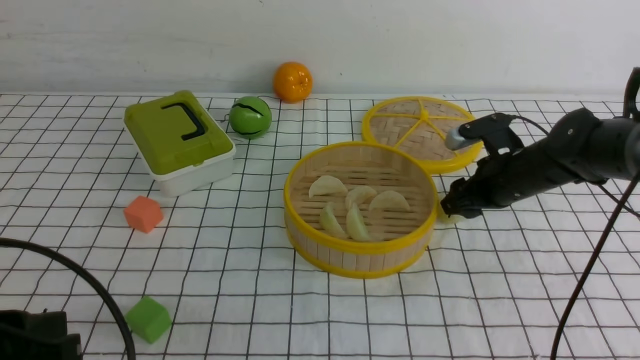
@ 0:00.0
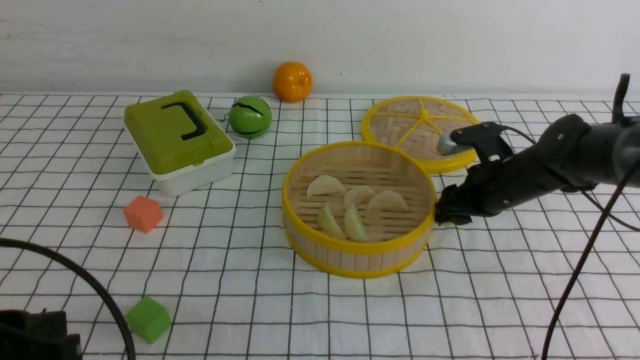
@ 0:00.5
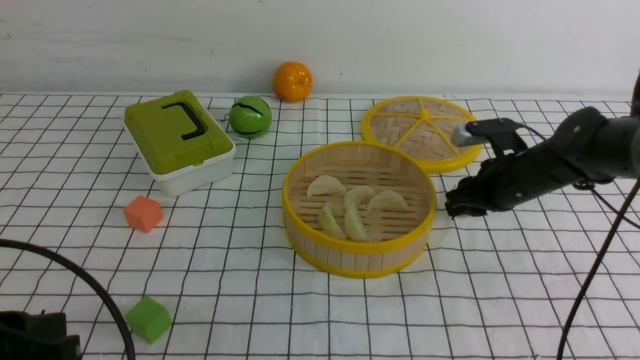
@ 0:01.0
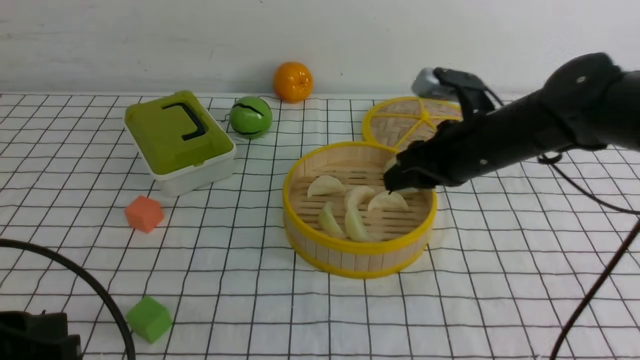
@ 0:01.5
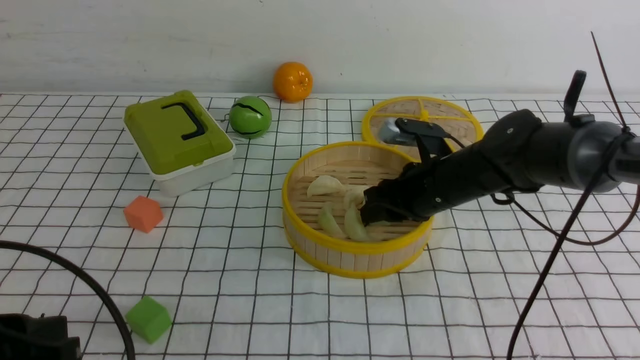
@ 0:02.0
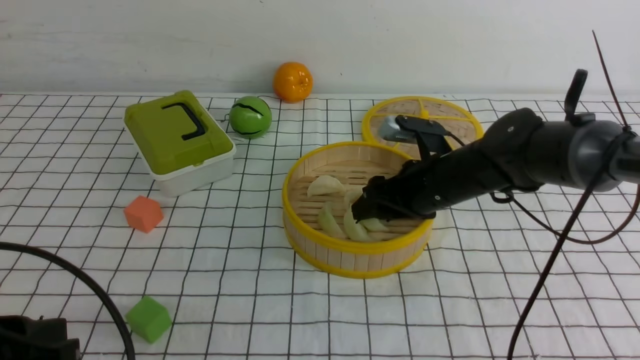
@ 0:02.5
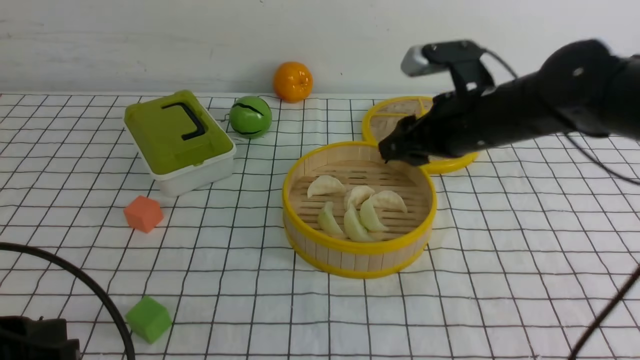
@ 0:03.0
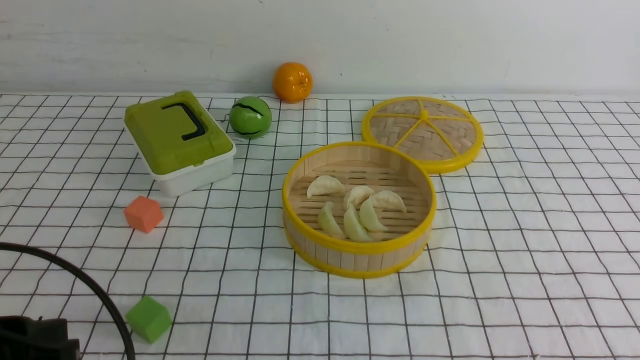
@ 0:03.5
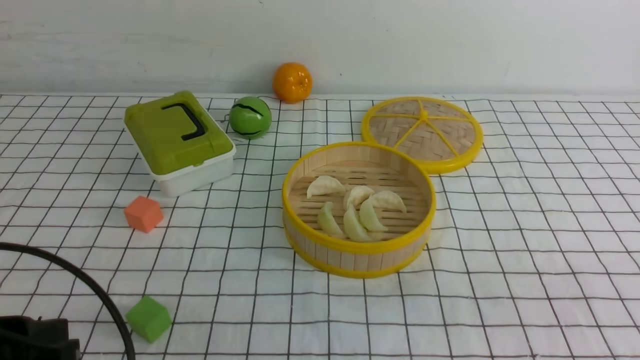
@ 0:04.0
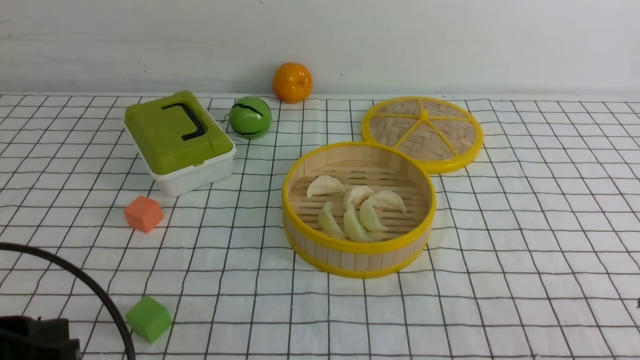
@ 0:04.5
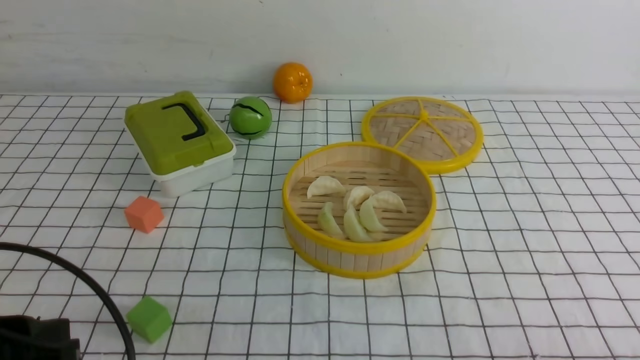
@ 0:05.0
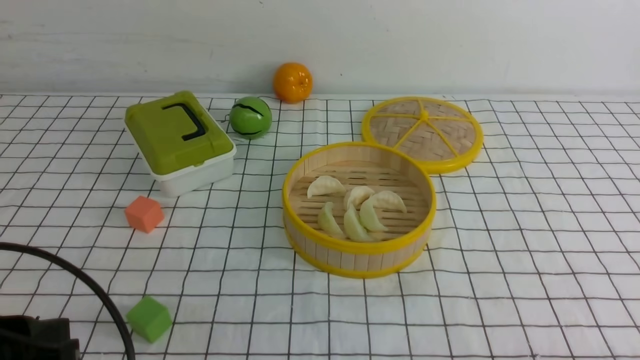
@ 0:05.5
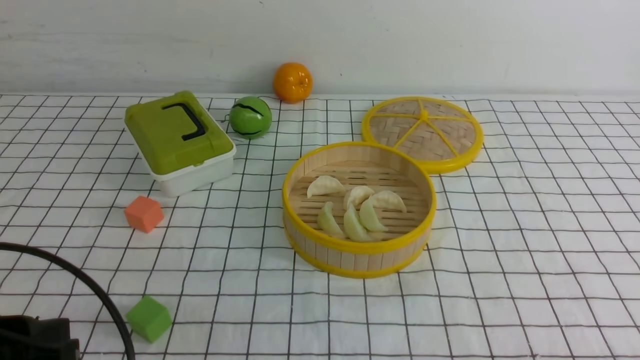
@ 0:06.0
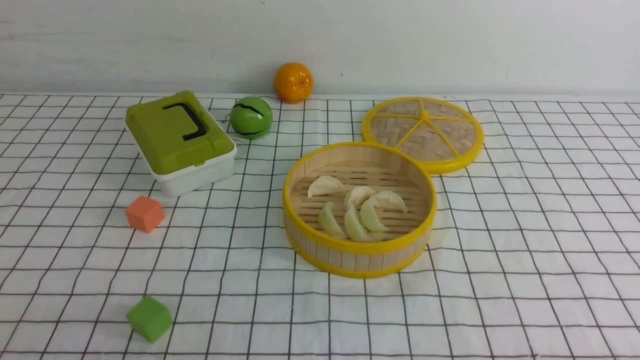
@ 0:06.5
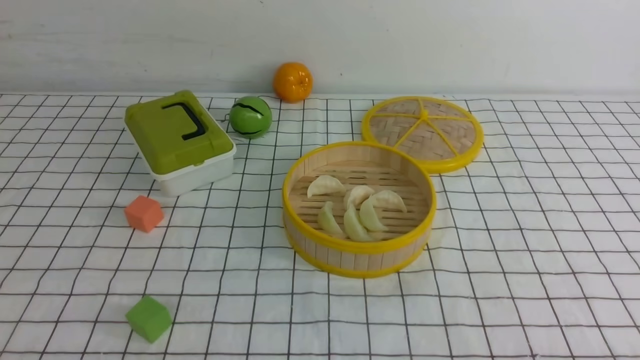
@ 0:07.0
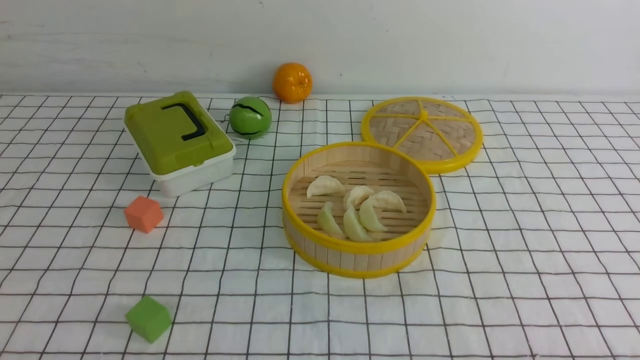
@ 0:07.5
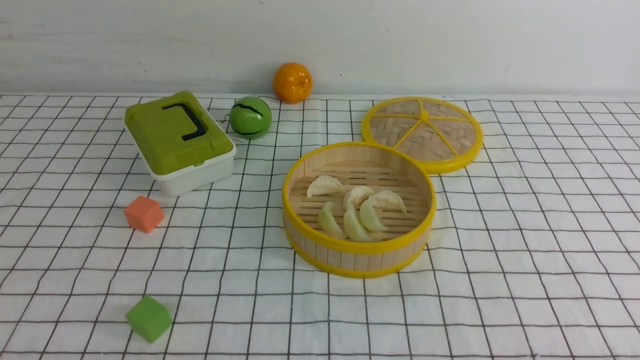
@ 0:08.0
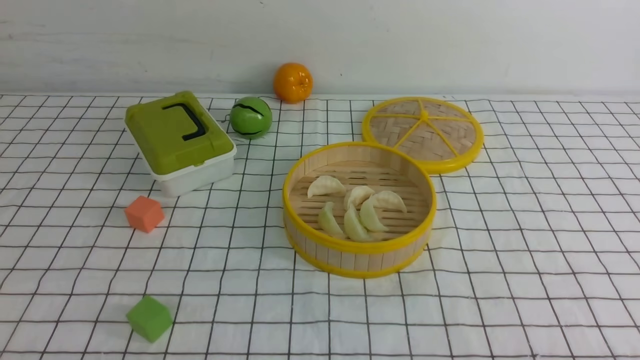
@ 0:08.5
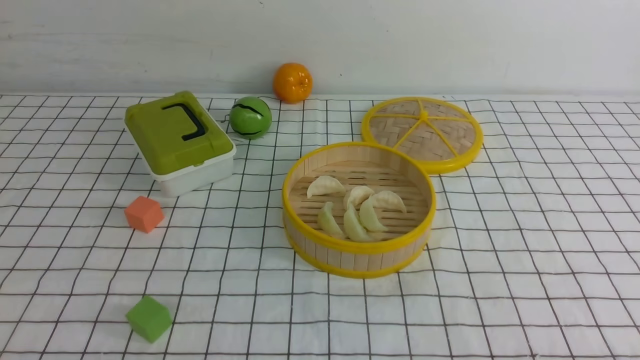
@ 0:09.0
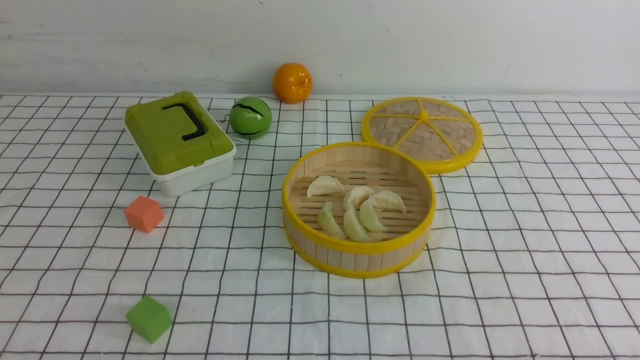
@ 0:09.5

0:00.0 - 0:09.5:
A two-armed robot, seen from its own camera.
Task of the whole recording: put the dumplings into the steamer on the table with the white tablecloth.
0:00.0 - 0:02.0: The right gripper heads to the left, covering some 10 cm, and closes.
0:02.0 - 0:04.0: The right gripper travels backward and to the right by about 35 cm, and closes up.
0:05.5 - 0:07.5: The left gripper travels downward and backward by about 10 cm, and closes.
0:07.5 - 0:09.5: Both grippers stay about where they are.
